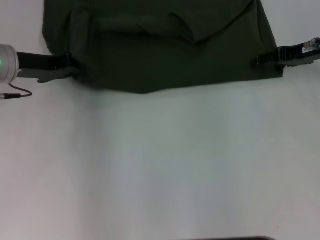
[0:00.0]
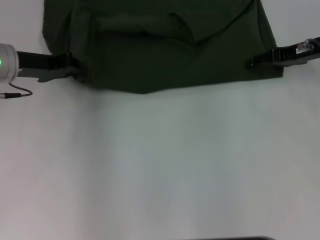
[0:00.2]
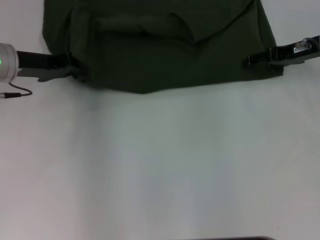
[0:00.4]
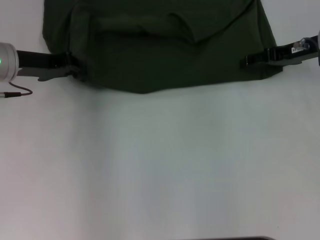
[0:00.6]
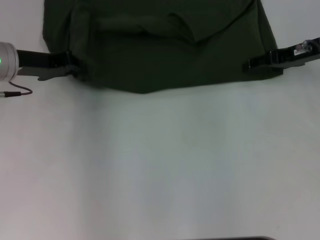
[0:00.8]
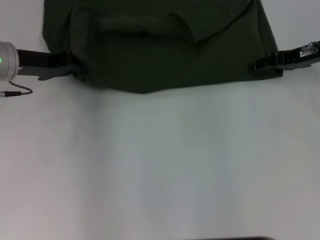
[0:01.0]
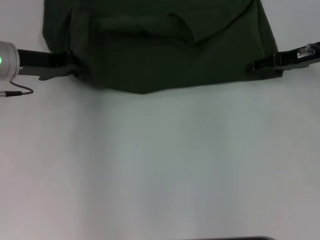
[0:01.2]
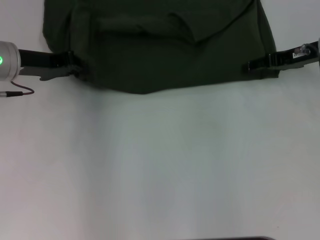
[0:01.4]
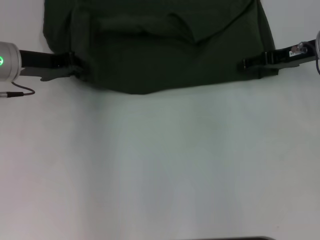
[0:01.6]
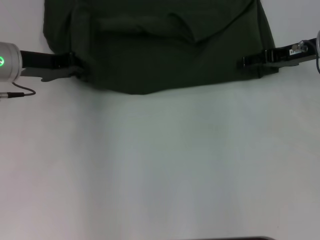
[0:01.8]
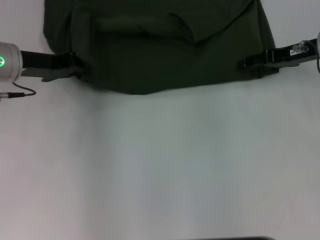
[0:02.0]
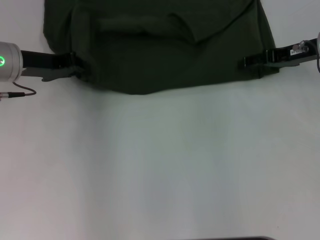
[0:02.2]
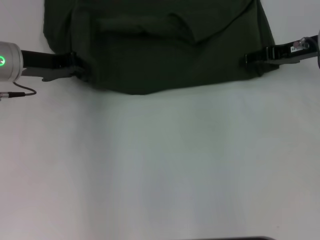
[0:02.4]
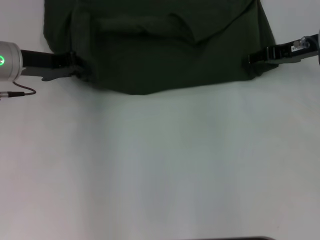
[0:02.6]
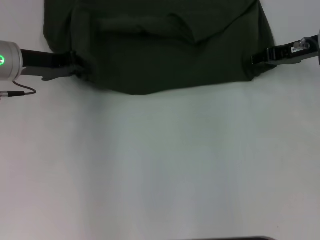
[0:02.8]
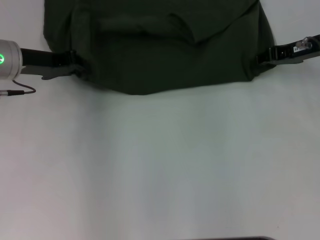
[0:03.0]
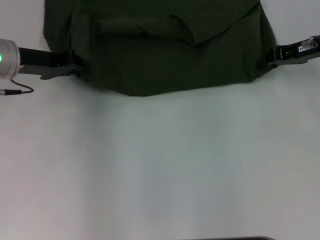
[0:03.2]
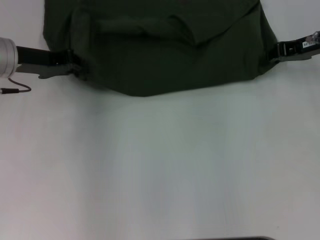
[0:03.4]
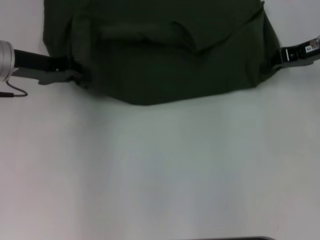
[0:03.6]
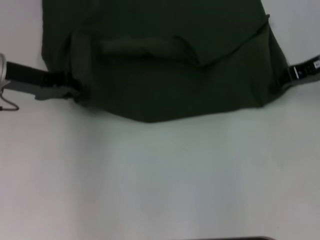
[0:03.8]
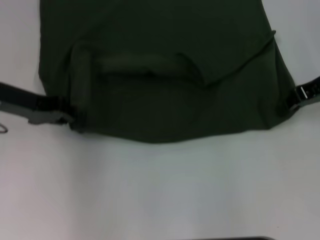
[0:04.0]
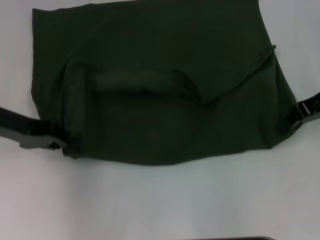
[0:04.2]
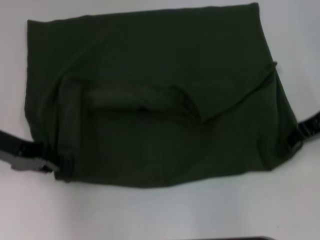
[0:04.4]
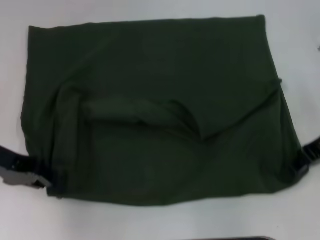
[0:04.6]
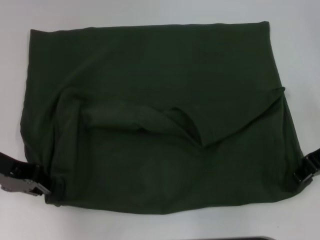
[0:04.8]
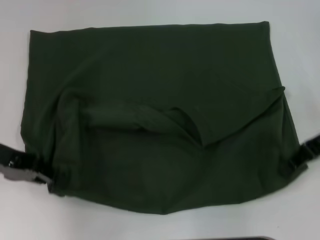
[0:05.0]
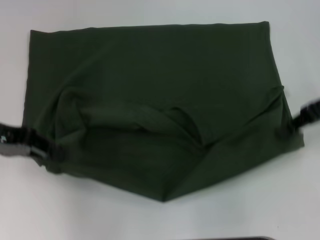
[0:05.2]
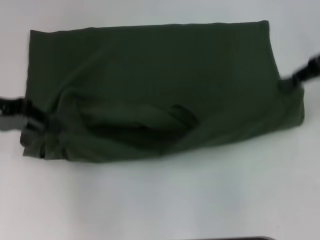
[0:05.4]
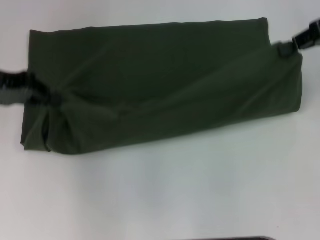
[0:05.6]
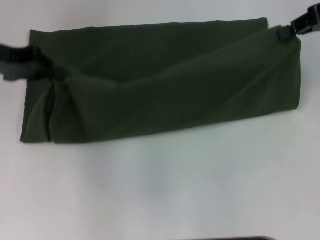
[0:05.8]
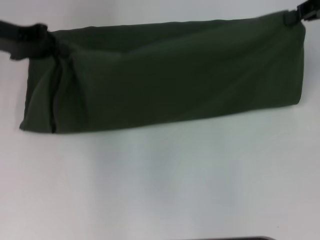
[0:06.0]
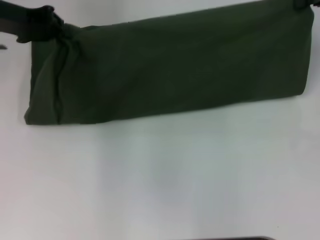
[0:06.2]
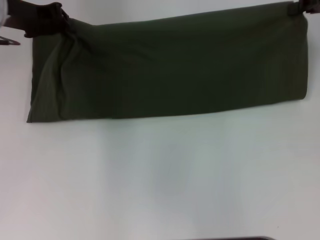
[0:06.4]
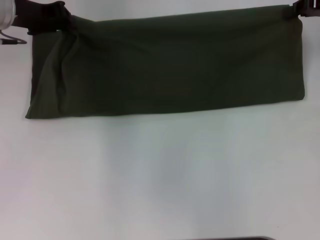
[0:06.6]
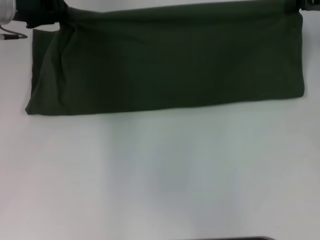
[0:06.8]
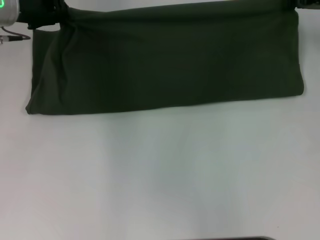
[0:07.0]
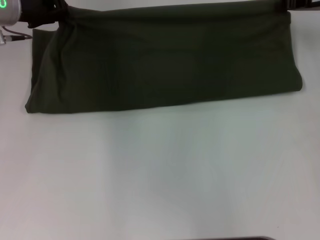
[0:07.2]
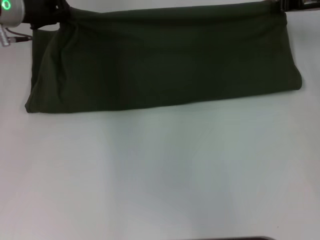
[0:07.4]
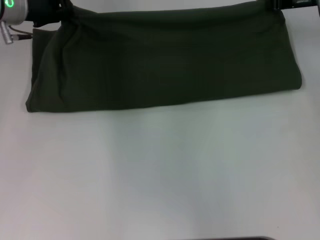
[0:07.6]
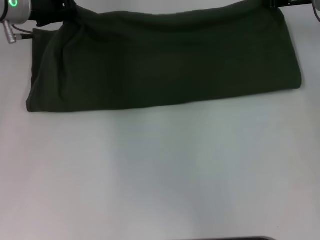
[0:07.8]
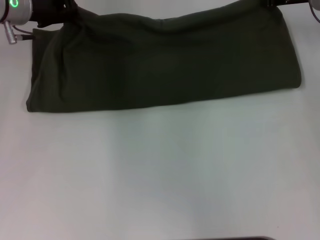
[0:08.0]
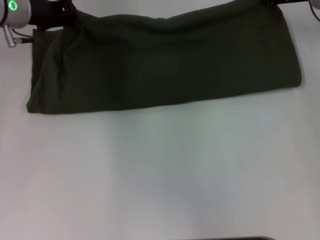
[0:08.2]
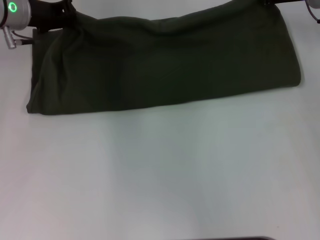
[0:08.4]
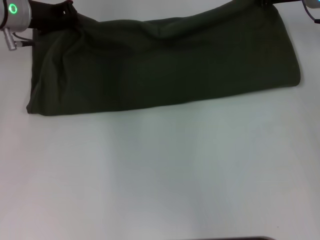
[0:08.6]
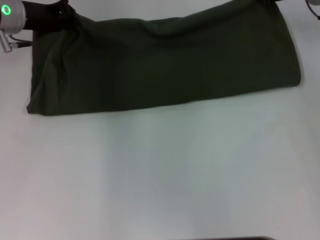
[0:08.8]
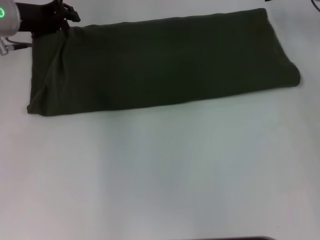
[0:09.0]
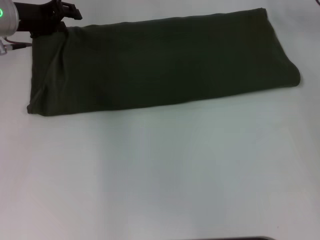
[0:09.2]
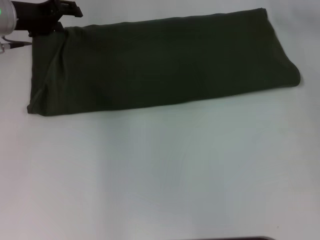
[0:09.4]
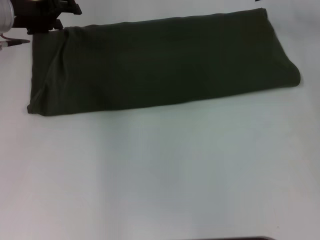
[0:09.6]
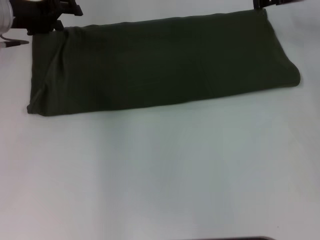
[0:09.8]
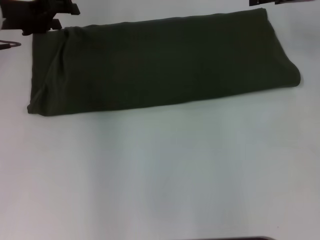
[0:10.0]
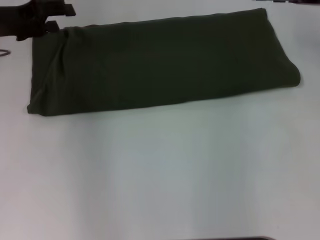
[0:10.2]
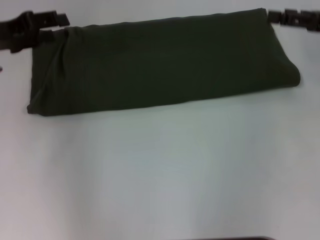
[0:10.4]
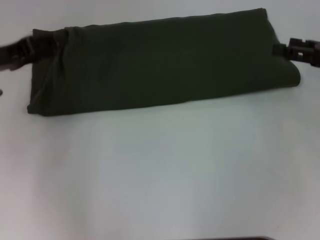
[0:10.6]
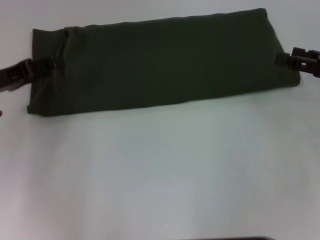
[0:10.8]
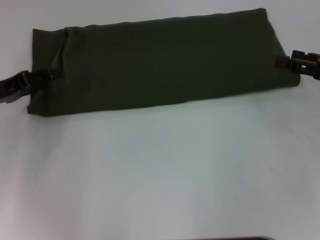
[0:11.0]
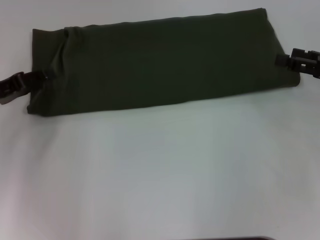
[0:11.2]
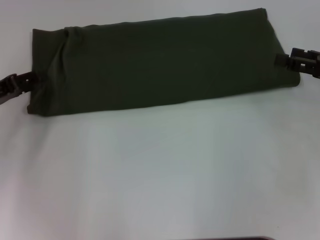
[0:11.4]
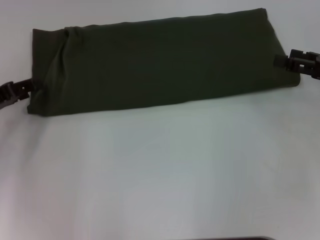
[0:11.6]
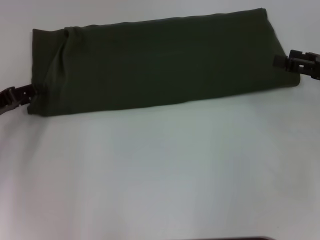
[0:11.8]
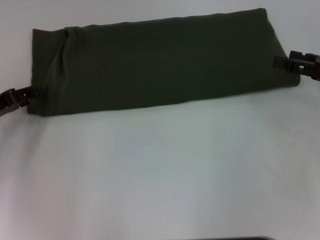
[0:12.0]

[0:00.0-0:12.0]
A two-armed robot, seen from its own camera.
Step, 0:00.0 to 0:04.8: Pull the clothes with your left hand.
Step, 0:00.0 to 0:04.8: Pull the clothes with your right hand.
Step, 0:05.0 to 0:09.6: Fold the clothes with your right hand.
0:00.0 to 0:01.6: The grippers make only small movements.
0:01.6 to 0:03.0: The right gripper closes.
0:03.0 to 0:04.4: The grippers both shift backward by roughly 10 cm.
0:04.4 to 0:06.0: The left gripper heads forward and upward, covering about 10 cm; the right gripper moves upward and forward, some 10 cm.
0:06.0 to 0:07.6: The right gripper travels downward and to the left by some 10 cm. The left gripper moves forward, approximately 5 cm.
0:07.6 to 0:09.0: There are only small adjustments of the grippers.
0:09.0 to 0:10.4: The left gripper shifts roughly 5 cm backward, and opens; the right gripper heads backward and to the right, covering approximately 15 cm, and opens.
0:10.4 to 0:12.0: The left gripper is displaced downward and backward by roughly 10 cm. Meanwhile the right gripper moves about 5 cm.

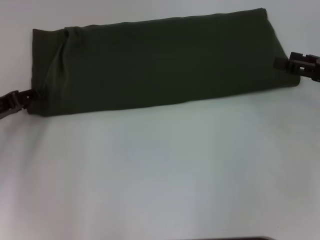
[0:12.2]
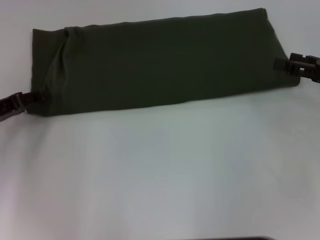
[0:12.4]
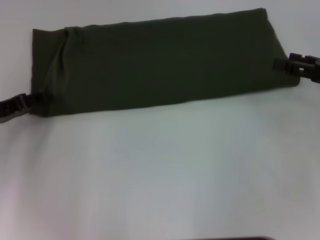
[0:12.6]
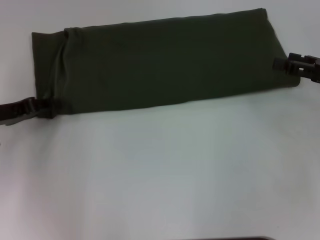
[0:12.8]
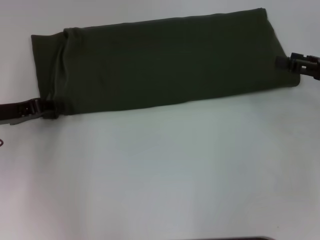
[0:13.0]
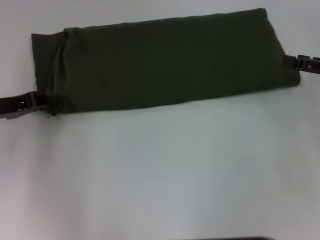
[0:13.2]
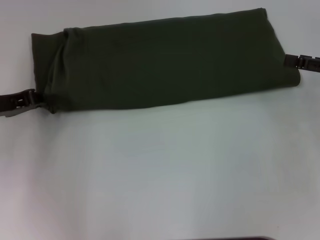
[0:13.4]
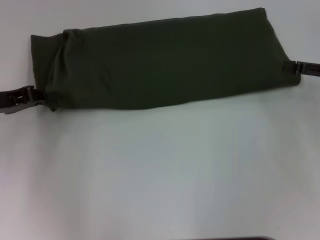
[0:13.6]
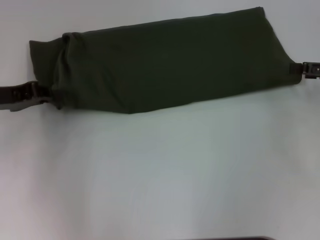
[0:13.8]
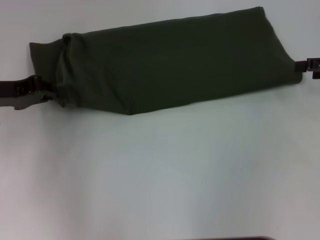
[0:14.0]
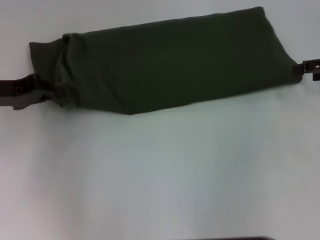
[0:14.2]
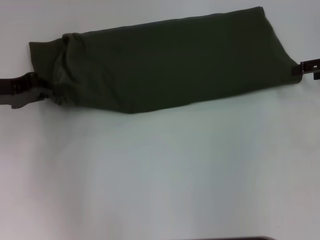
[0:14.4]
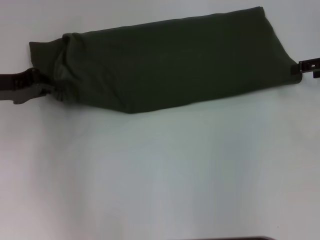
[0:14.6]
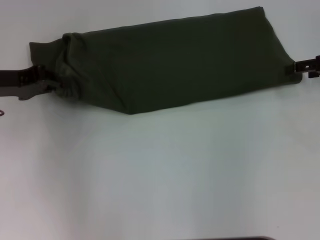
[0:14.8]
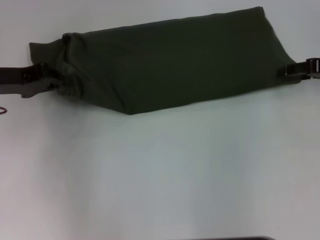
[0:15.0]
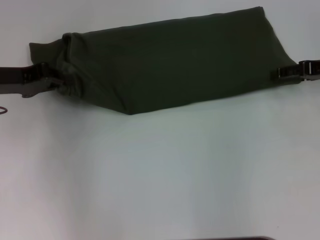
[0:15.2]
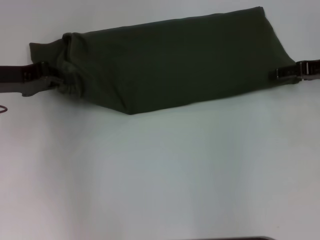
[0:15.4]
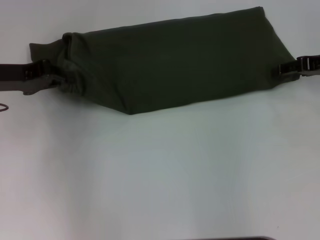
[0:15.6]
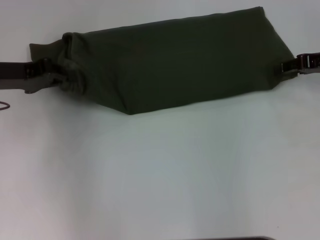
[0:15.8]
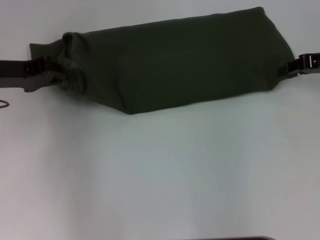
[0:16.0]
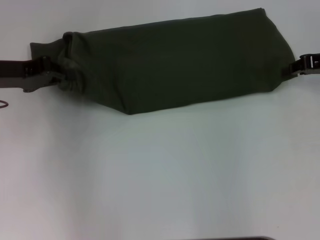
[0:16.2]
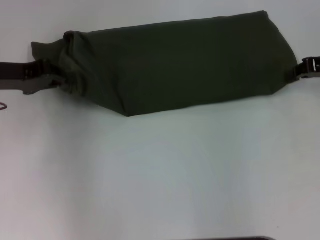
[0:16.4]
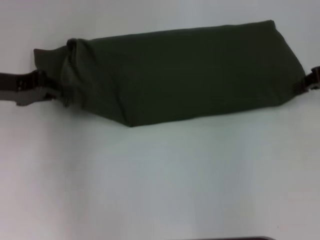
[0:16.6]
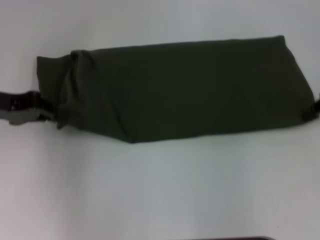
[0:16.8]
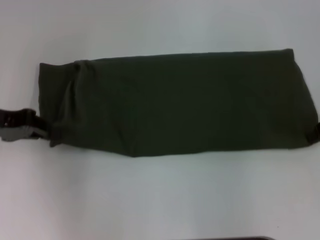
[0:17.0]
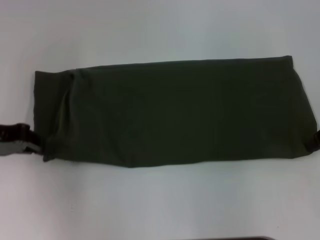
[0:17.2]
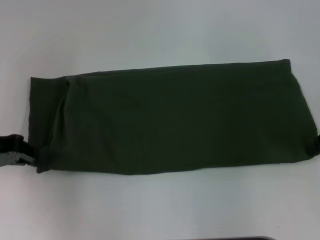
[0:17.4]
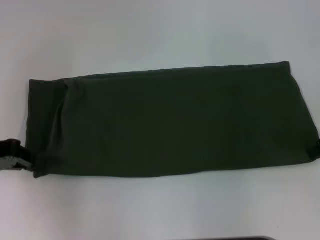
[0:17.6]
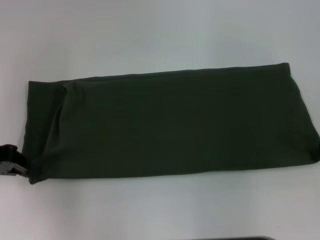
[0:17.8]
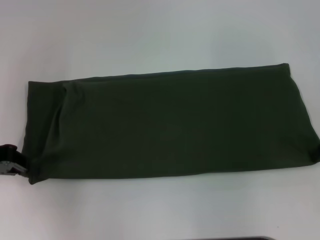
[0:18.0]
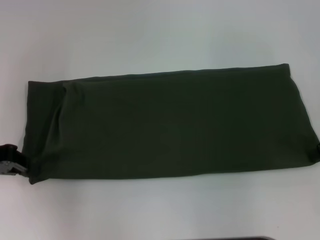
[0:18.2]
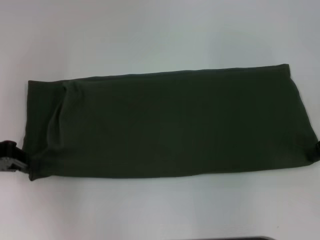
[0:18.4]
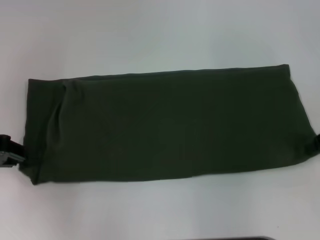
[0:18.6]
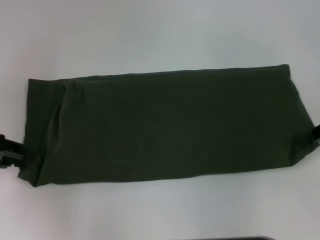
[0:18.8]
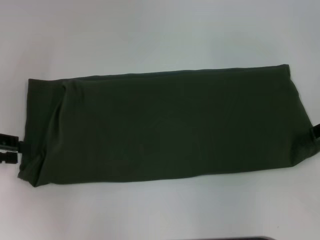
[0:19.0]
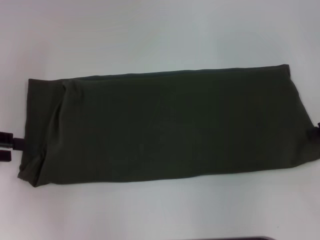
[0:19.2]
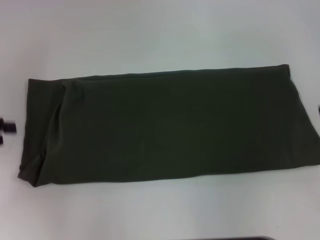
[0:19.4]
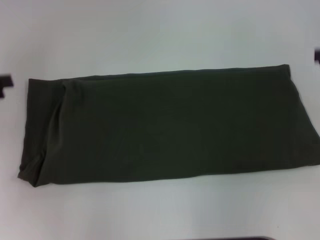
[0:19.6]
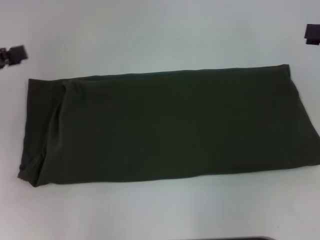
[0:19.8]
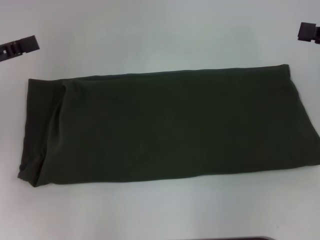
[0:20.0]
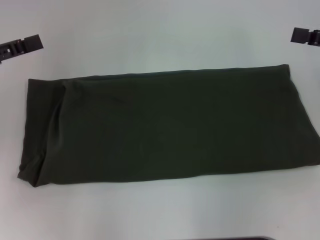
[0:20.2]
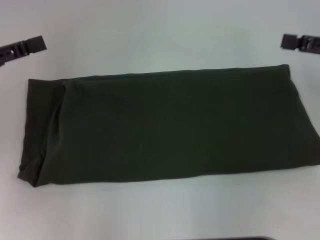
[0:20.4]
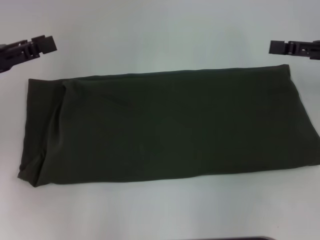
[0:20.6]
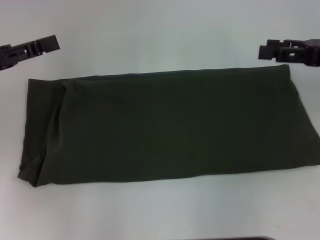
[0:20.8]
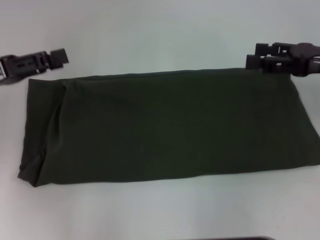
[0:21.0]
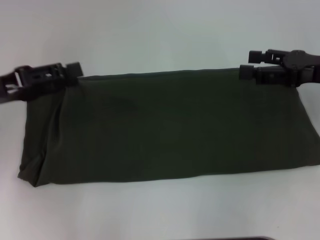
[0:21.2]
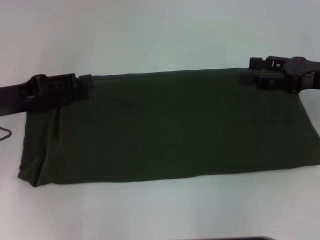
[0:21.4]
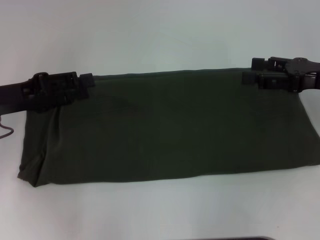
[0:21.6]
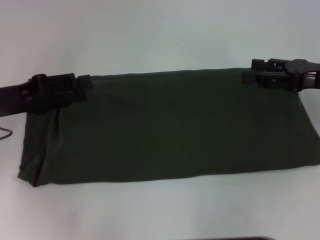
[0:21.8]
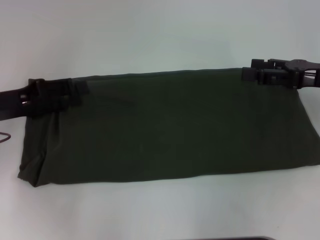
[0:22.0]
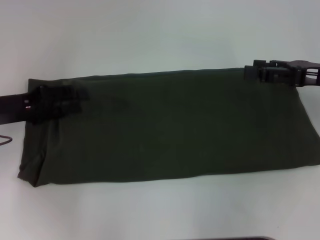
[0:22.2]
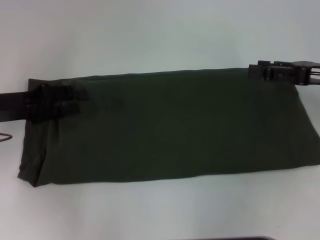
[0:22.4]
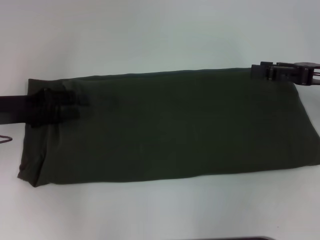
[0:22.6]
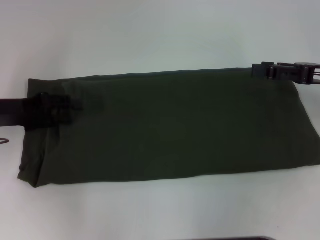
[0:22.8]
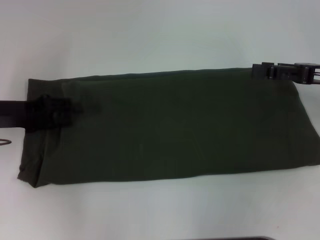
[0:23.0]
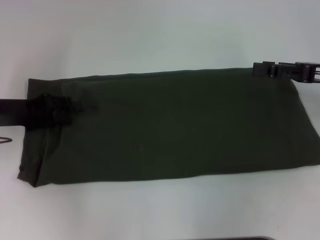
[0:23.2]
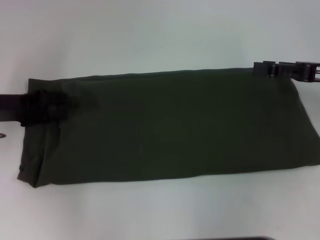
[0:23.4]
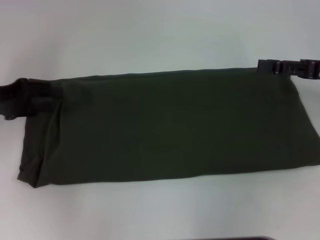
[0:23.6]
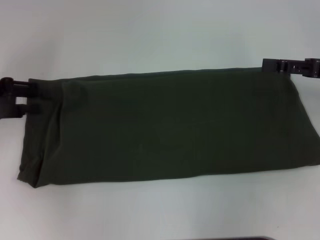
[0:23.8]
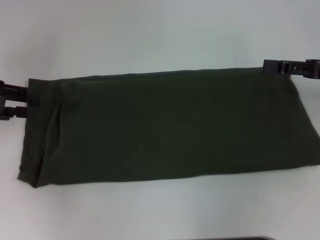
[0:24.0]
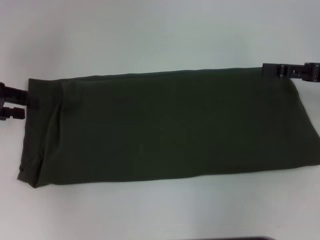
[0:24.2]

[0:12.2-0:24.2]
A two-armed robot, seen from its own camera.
0:12.2 to 0:13.8: The left gripper shifts by roughly 5 cm, and closes.
0:15.2 to 0:16.6: The right gripper closes up.
0:16.6 to 0:18.2: The grippers both shift backward by approximately 5 cm.
0:18.2 to 0:19.8: The left gripper ends up approximately 5 cm from where it was, and opens up, while the right gripper shifts by some 5 cm, and opens up.
0:19.8 to 0:21.2: The left gripper is displaced to the right by roughly 5 cm, while the right gripper travels to the left by some 5 cm.
0:22.6 to 0:24.2: The left gripper heads to the left, covering approximately 5 cm.
